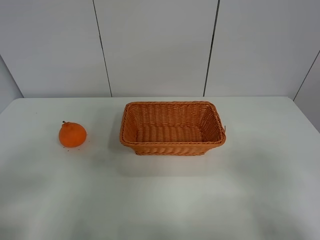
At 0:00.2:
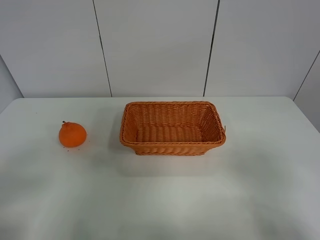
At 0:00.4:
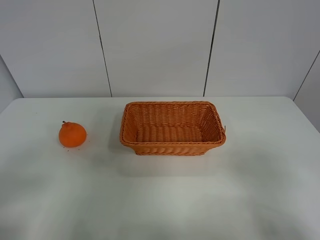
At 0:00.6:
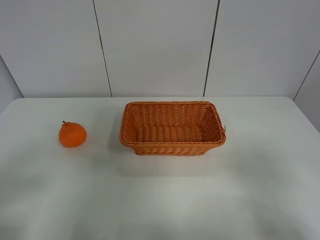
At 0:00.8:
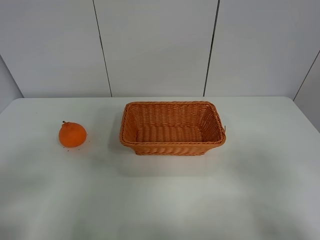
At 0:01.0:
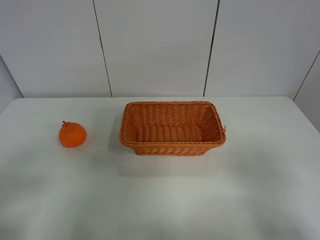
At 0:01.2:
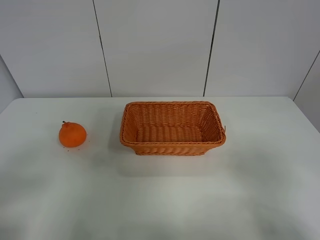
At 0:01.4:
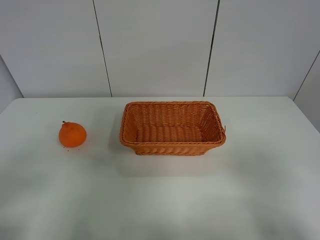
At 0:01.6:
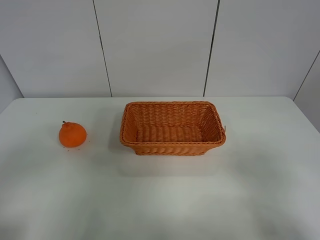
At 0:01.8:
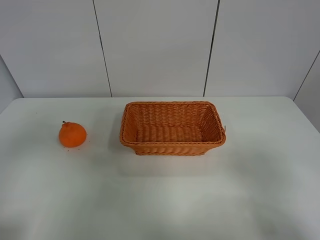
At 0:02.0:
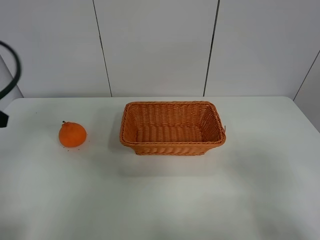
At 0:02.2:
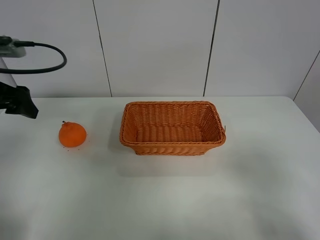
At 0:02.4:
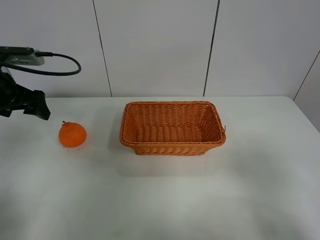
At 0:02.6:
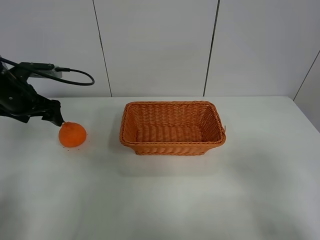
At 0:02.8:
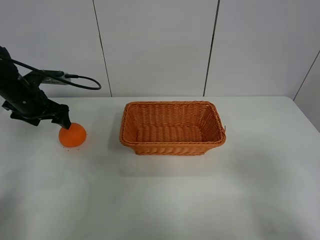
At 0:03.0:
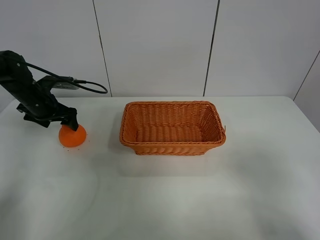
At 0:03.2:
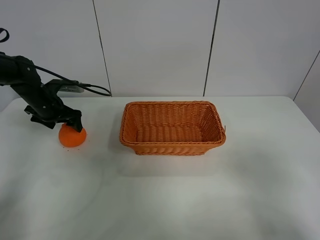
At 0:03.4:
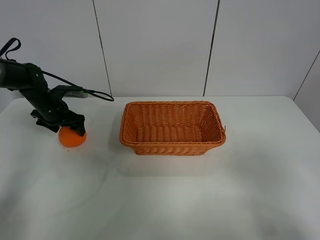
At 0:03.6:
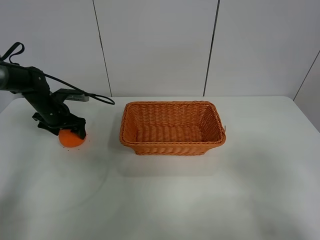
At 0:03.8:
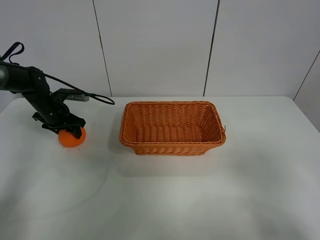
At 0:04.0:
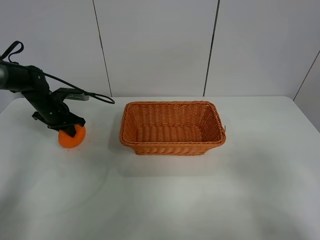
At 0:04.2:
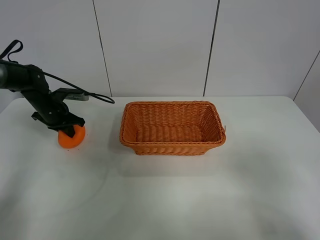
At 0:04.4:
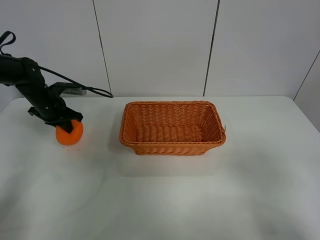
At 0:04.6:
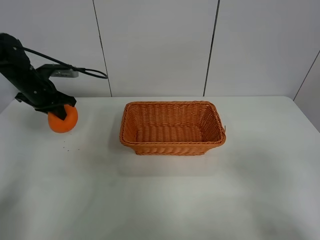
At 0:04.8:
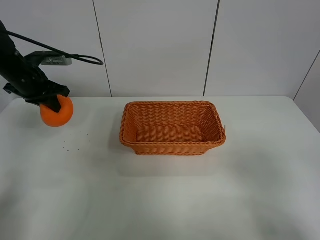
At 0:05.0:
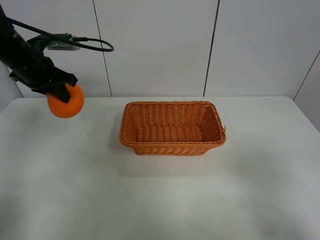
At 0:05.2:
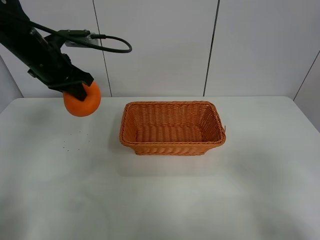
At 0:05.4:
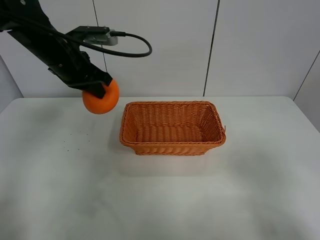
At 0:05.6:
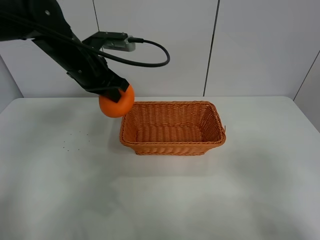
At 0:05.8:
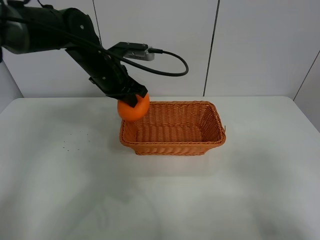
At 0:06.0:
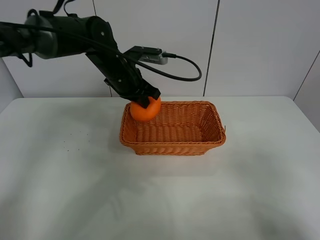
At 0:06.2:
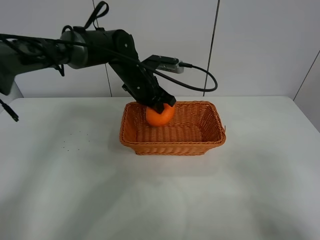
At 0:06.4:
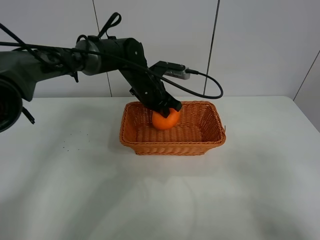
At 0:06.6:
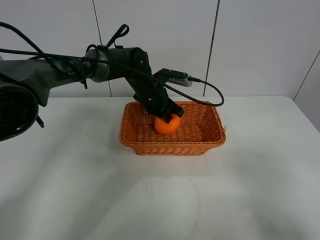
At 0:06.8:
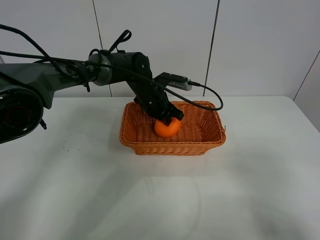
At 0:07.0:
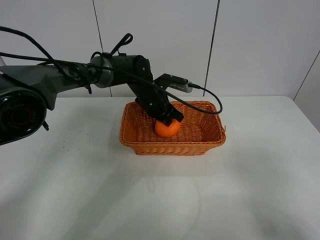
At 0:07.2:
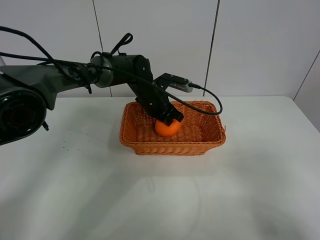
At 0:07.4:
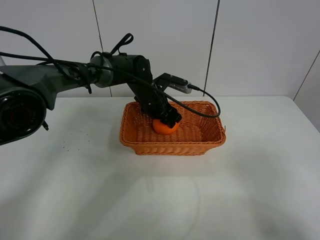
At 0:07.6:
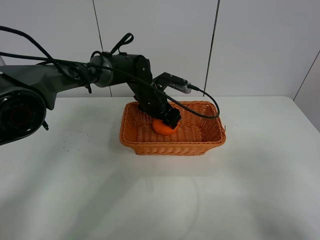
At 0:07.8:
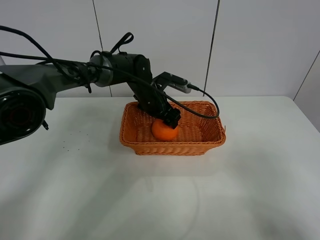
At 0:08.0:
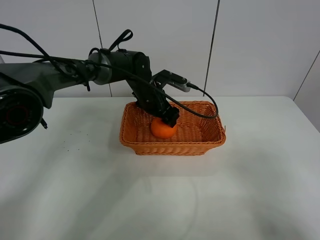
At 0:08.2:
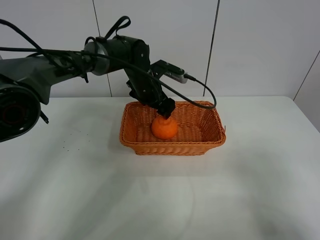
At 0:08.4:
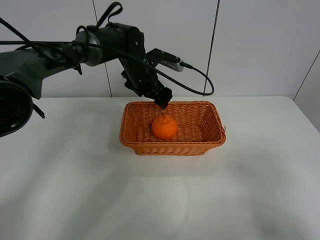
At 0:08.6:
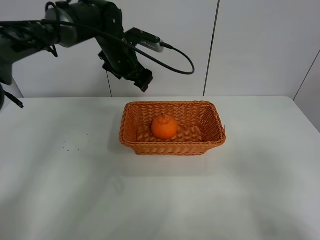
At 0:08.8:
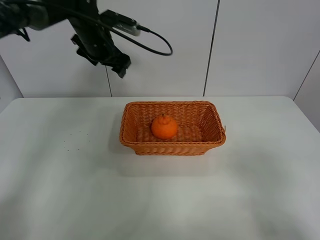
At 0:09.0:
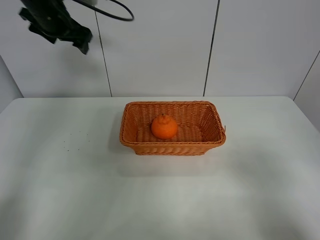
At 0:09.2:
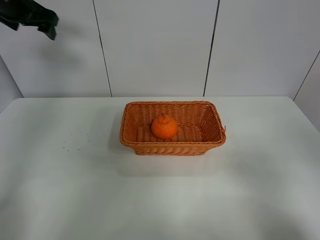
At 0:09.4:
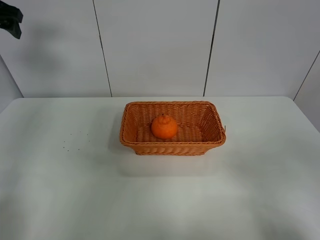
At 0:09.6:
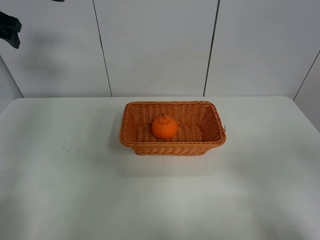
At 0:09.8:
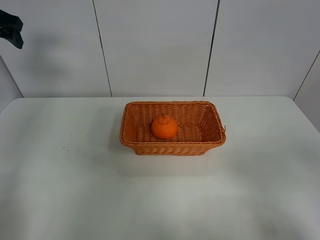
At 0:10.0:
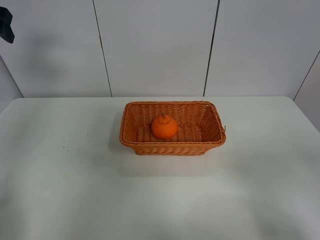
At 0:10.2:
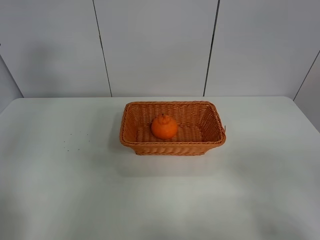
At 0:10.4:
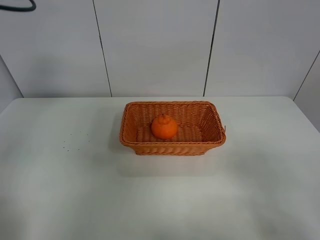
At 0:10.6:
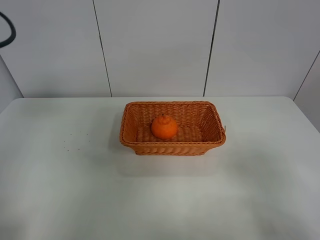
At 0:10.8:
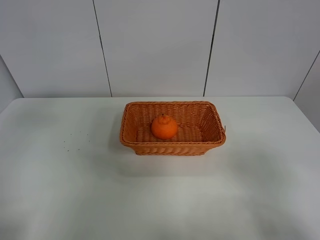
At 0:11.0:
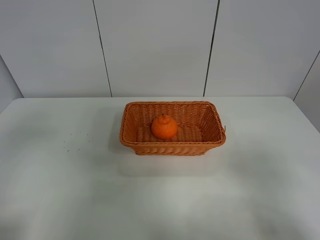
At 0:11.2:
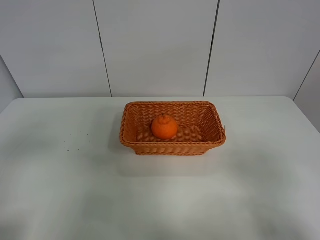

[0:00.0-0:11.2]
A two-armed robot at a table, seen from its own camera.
Task of the whole recording: left gripper grabs oranges and puts them in the basket.
Step, 0:00.0 to 0:04.0: Grasp the orange with left gripper.
Step, 0:04.2 to 0:08.8: Place the orange in the basket with left gripper.
0:01.6 to 0:03.2: The left gripper heads forward and downward, covering approximately 40 cm.
0:03.2 to 0:04.8: The left gripper goes roughly 10 cm upward, and closes.
0:04.8 to 0:06.4: The left gripper is displaced to the right by approximately 25 cm.
0:06.4 to 0:08.0: The left gripper opens.
0:08.0 to 0:09.6: The left gripper moves to the left and upward, about 40 cm.
0:09.6 to 0:11.2: The left gripper heads backward, covering about 35 cm.

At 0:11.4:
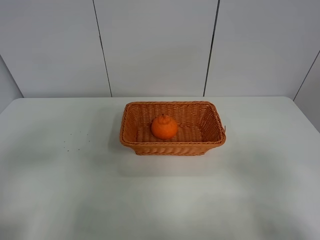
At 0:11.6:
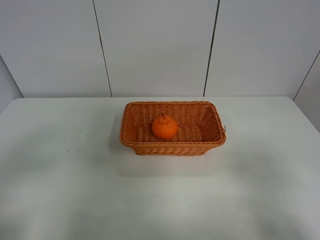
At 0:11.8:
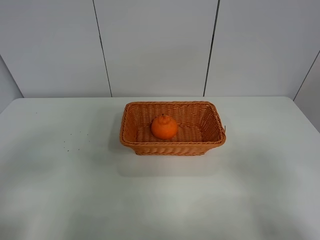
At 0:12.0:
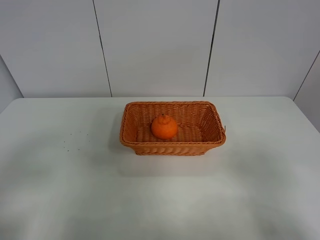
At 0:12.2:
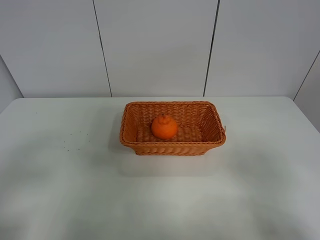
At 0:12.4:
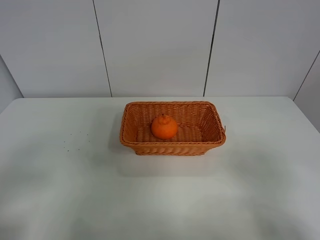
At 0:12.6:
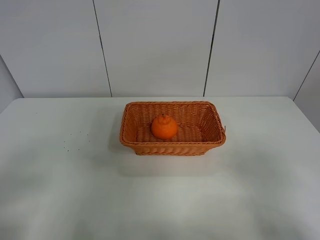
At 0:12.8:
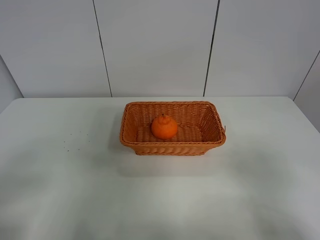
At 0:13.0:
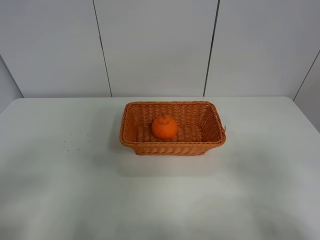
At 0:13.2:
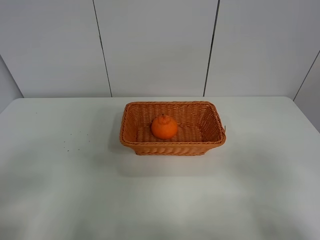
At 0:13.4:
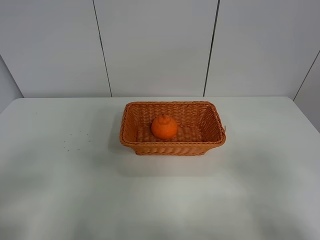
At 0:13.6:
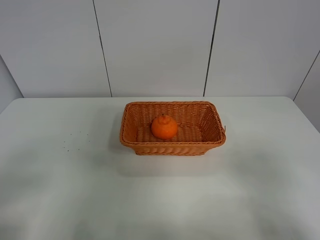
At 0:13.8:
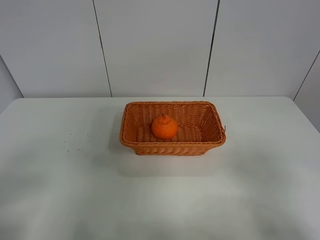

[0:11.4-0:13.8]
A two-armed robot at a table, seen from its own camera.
Task of the whole recording: left gripper grabs oranges and puts them in the basket.
0:12.6 to 0:13.8: Neither gripper changes place.
